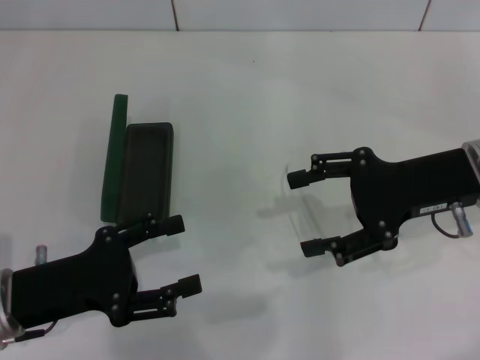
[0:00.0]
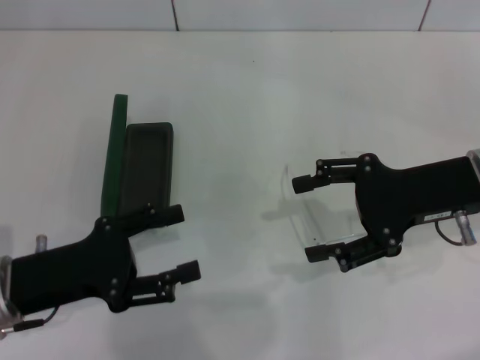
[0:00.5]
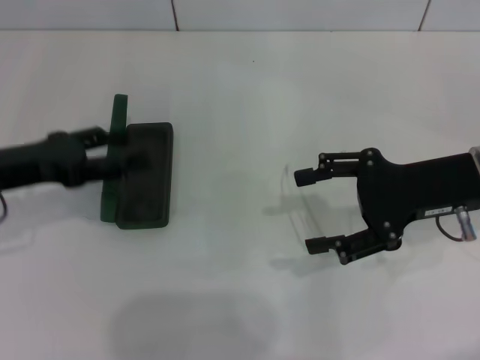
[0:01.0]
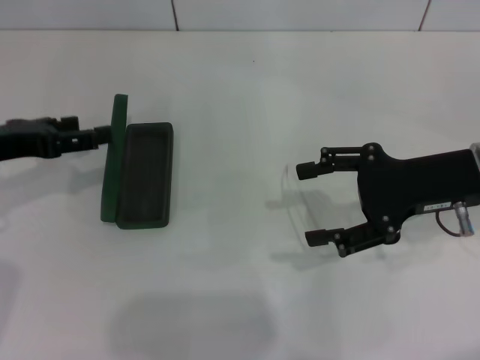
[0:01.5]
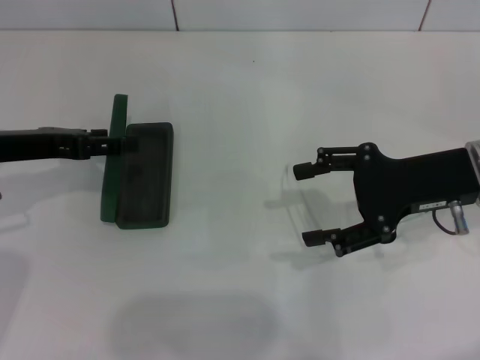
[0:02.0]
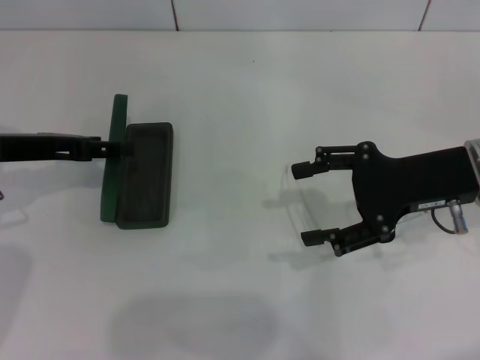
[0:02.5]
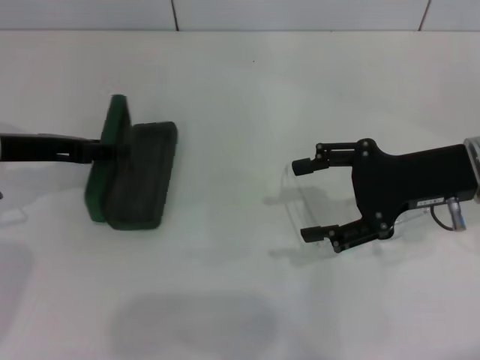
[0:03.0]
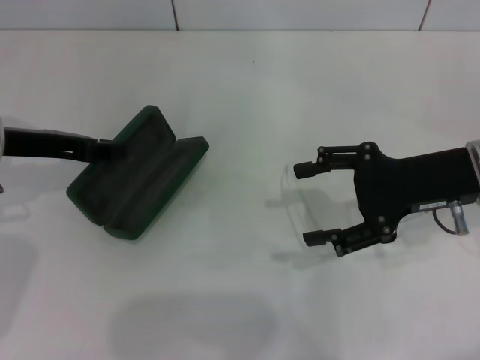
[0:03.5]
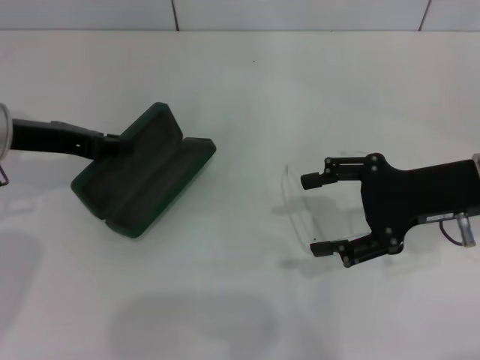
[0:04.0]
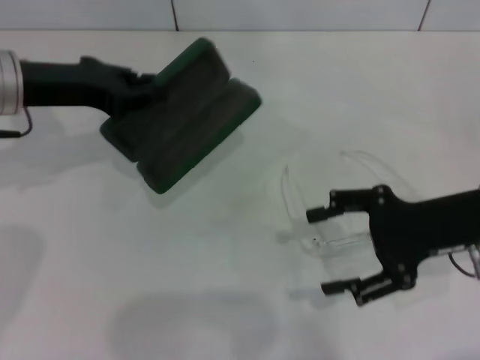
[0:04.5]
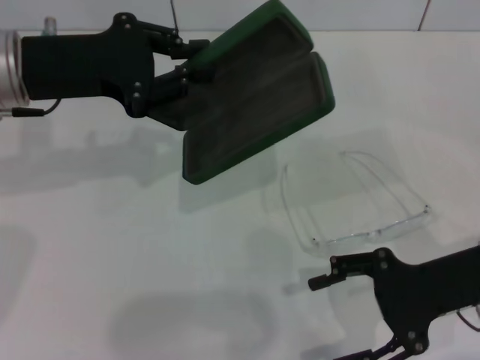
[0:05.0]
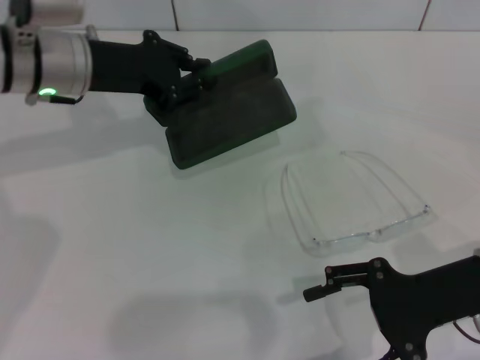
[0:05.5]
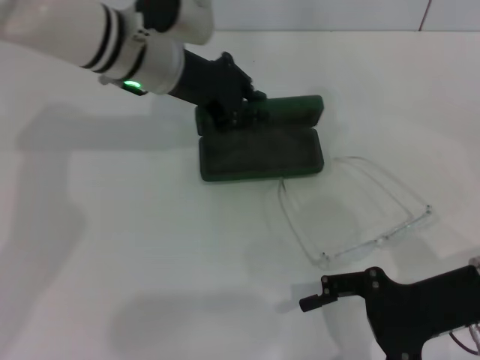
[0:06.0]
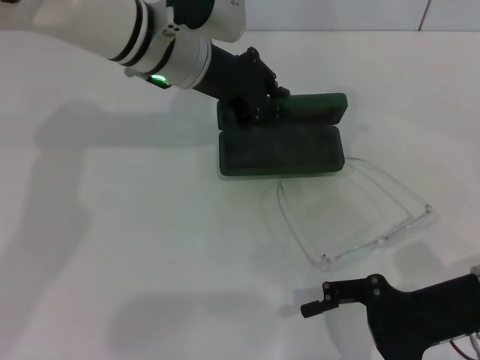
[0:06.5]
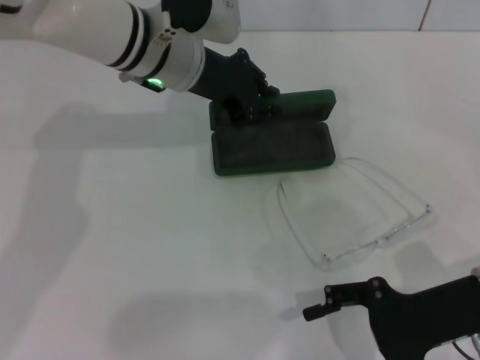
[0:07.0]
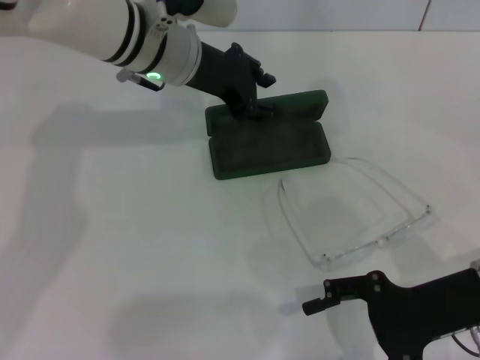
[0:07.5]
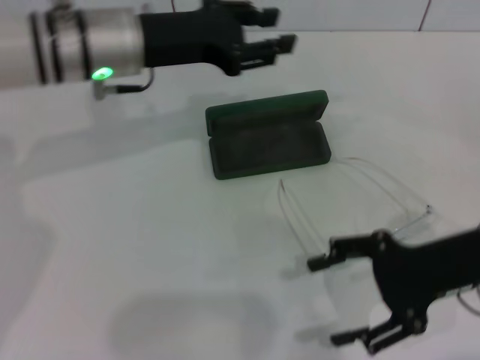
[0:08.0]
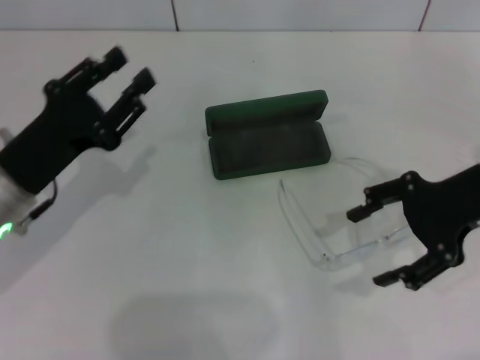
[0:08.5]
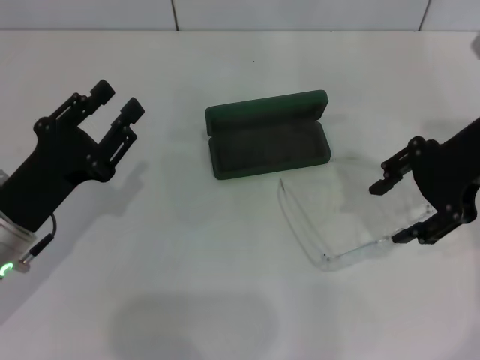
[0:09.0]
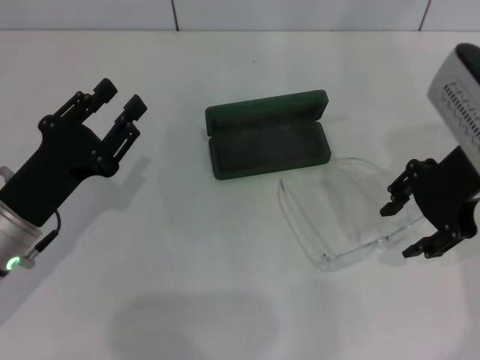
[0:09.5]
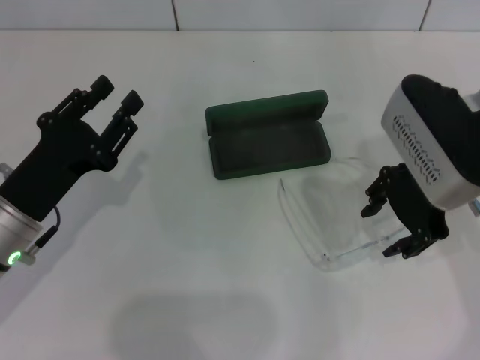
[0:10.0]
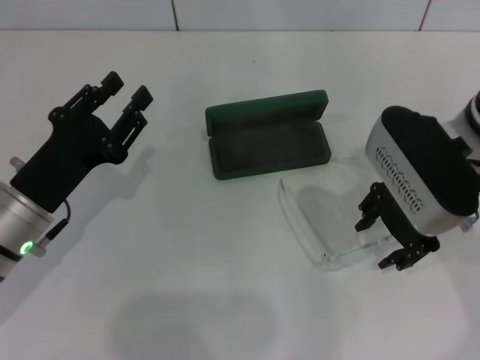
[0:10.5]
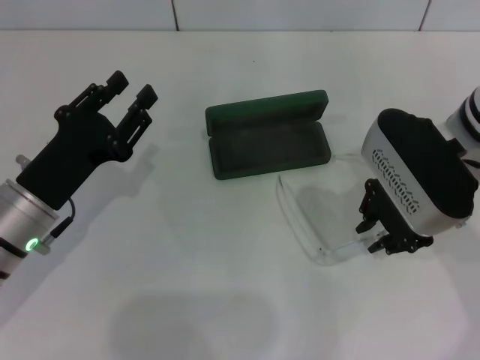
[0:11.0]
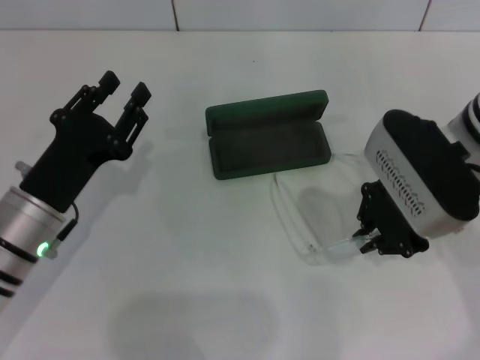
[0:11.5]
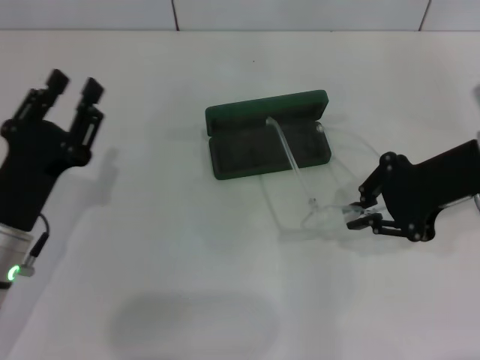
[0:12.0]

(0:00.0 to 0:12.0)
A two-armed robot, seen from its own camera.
Step, 0:00.0 - 0:03.0: Grab the glasses case with your left hand.
Step, 0:03.5 - 0:07.0: Place the glasses case in the center of the table with your left hand.
Step, 0:07.5 - 0:11.0: Grab the eyeglass frame with your right hand.
0:00.0 - 0:02.0: The left gripper goes approximately 15 cm forward and upward.
0:02.0 - 0:04.0: The left gripper closes its fingers.
0:04.0 - 0:06.0: The left gripper travels to the right and forward by approximately 15 cm. The right gripper shifts some 5 cm backward.
0:06.0 - 0:08.0: The left gripper opens up.
0:08.0 - 0:10.0: The right gripper goes roughly 10 cm upward, forward and to the left. The left gripper heads backward, downward and to the left, covering approximately 20 cm.
0:10.0 - 0:12.0: The right gripper changes place by about 5 cm, and closes up.

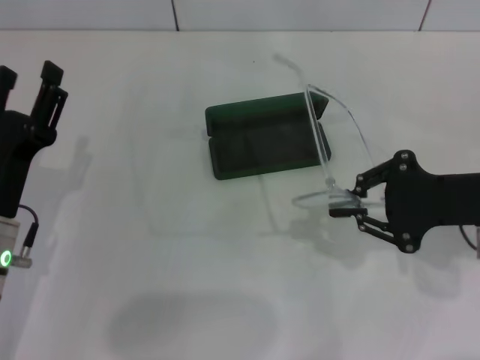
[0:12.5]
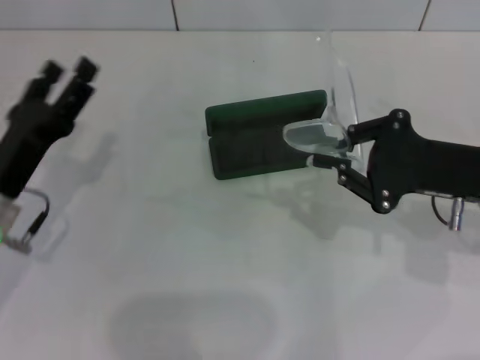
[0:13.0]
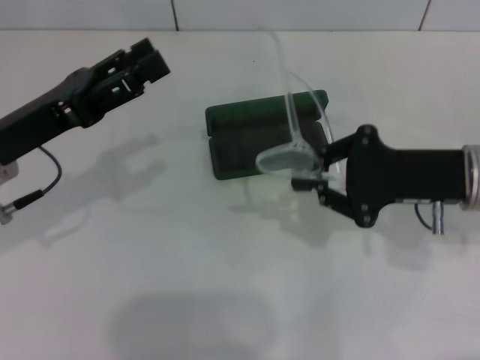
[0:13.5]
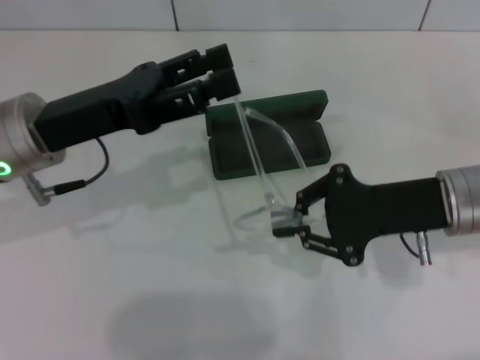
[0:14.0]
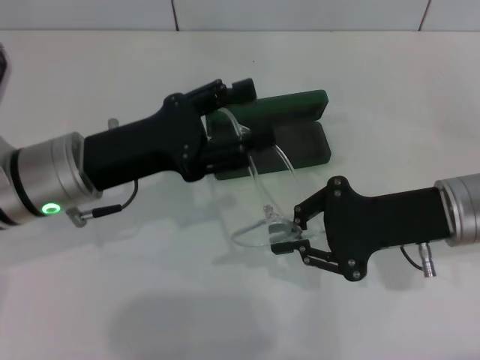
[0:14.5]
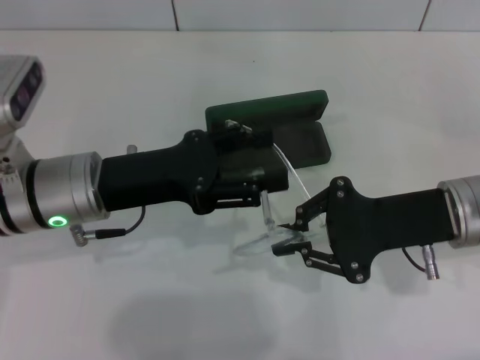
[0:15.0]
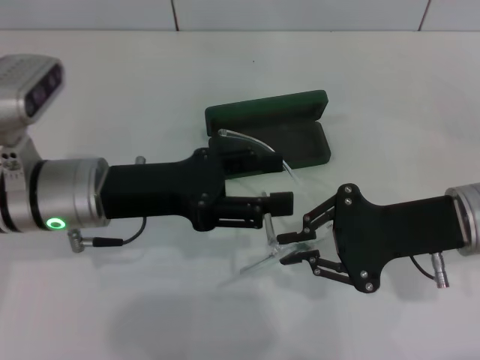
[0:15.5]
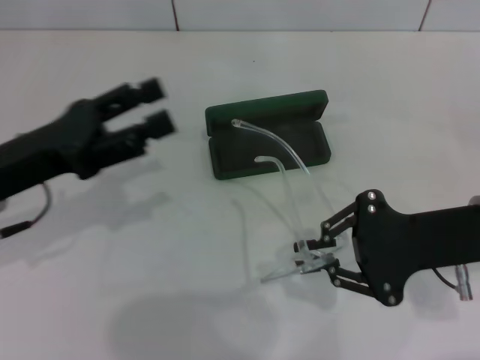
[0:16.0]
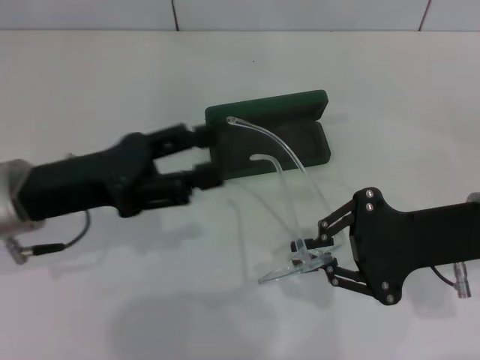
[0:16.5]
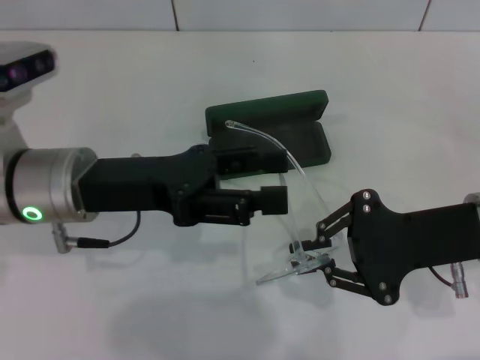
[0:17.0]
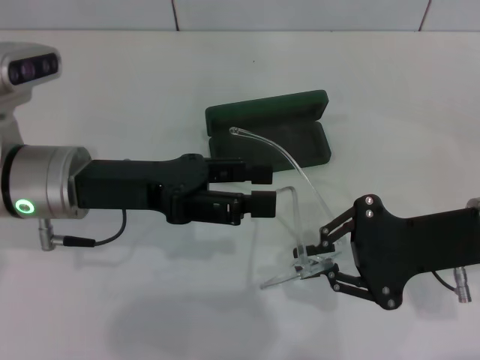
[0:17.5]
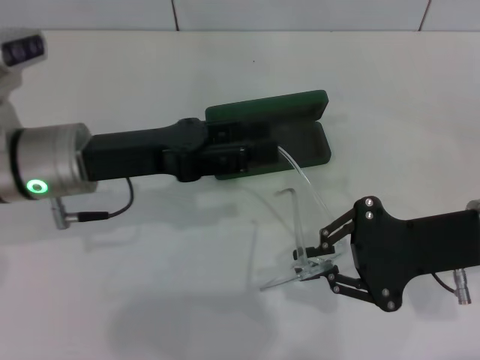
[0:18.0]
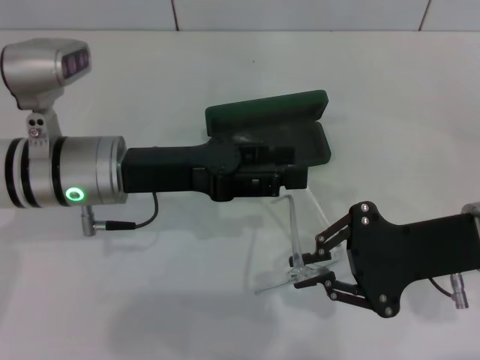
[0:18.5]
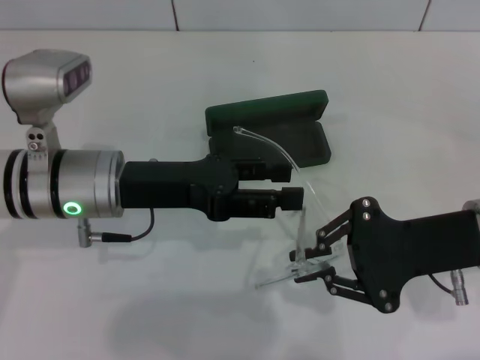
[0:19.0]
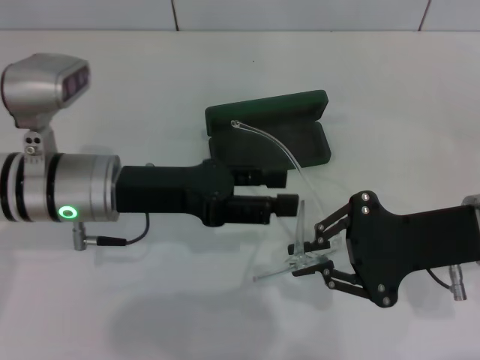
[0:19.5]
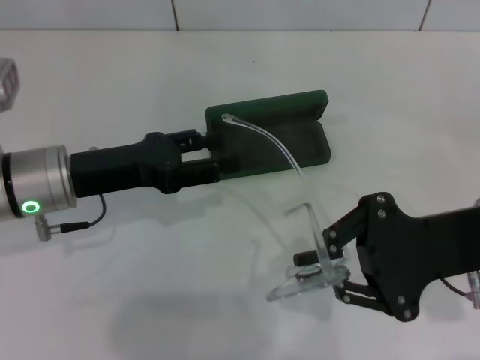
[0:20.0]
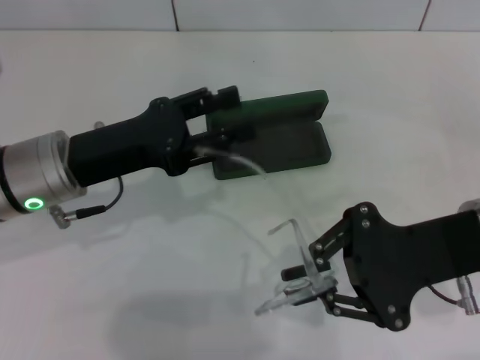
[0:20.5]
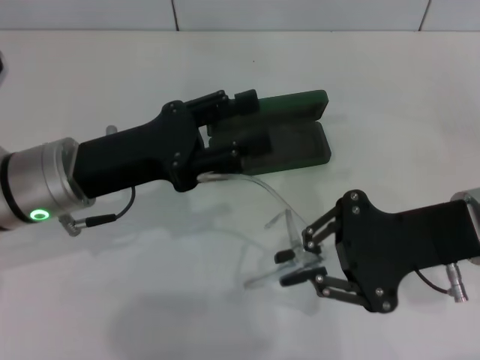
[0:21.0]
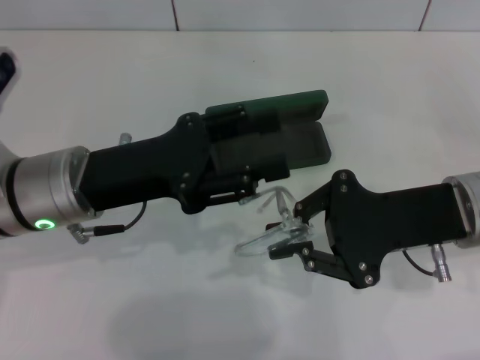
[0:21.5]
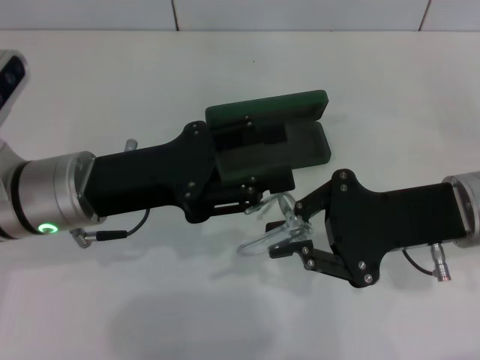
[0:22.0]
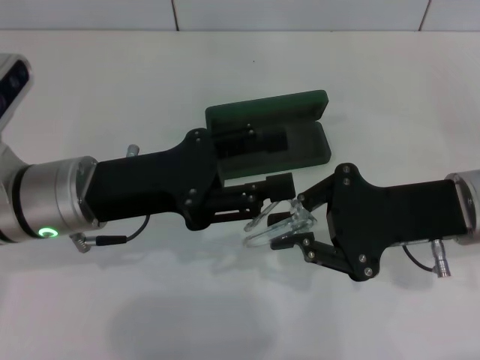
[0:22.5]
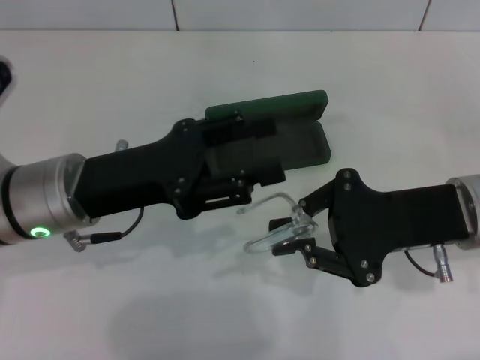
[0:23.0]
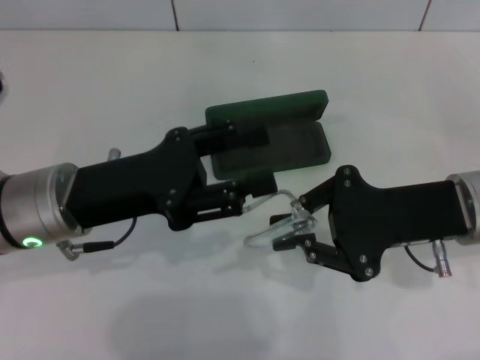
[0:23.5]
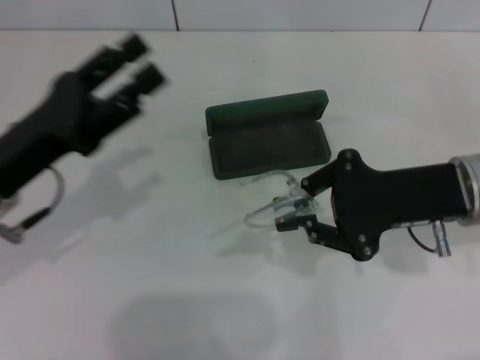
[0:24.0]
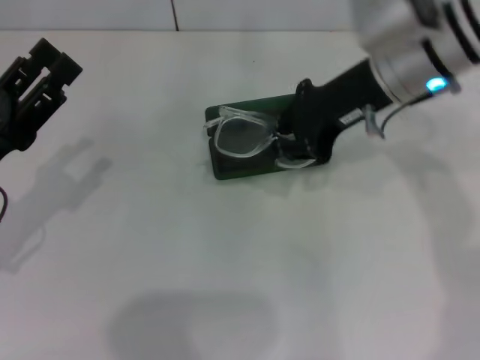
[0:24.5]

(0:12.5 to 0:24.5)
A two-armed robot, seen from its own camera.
Step, 0:12.5 - 0:23.0: Fold the frame with your left hand.
0:12.5 - 0:14.5: The right gripper moves to the left, about 5 cm, while the left gripper goes roughly 10 cm upward, forward and to the right.
0:16.5 - 0:18.5: The left gripper moves to the right, some 5 cm.
0:22.5 - 0:24.5: The right gripper heads forward, upward and to the left, covering about 15 cm; the left gripper shifts some 10 cm to the left.

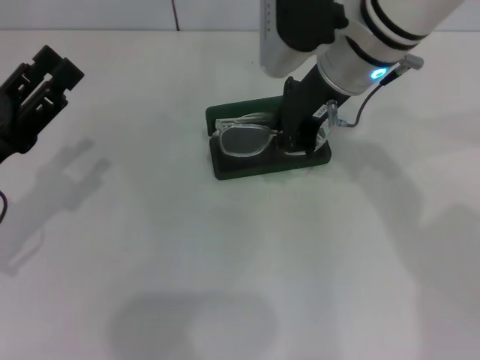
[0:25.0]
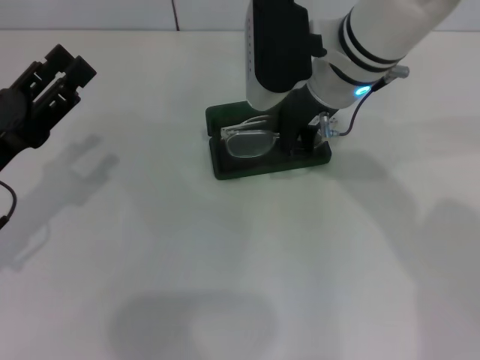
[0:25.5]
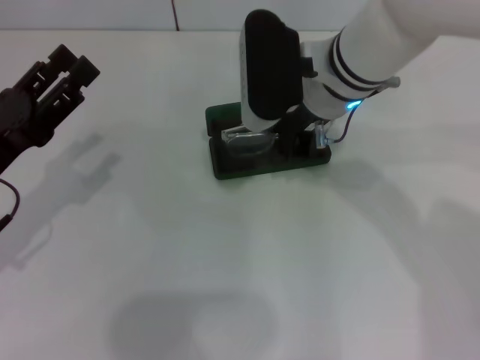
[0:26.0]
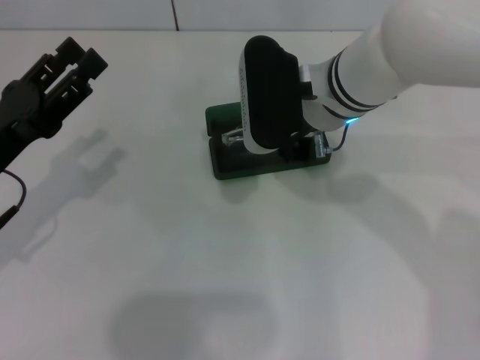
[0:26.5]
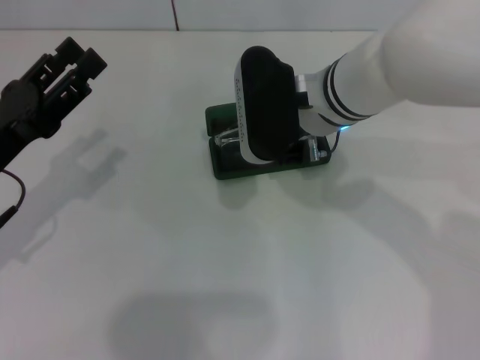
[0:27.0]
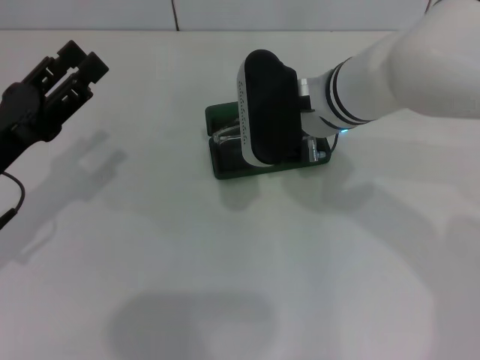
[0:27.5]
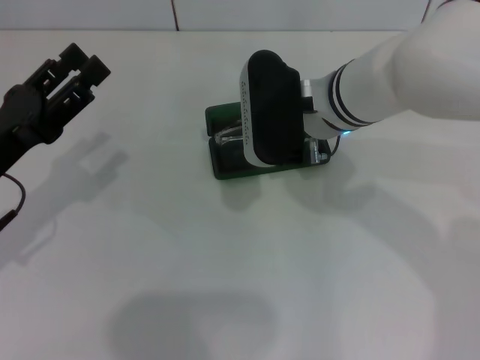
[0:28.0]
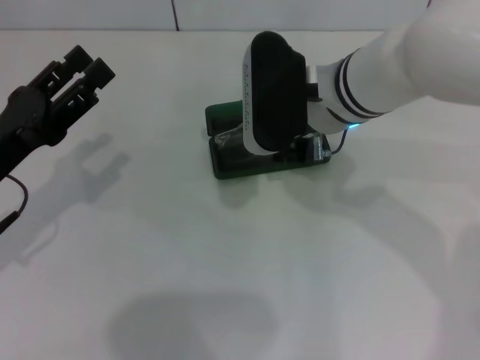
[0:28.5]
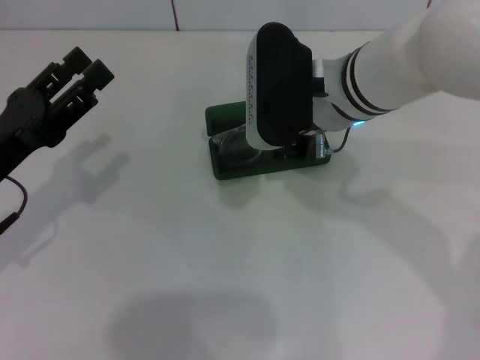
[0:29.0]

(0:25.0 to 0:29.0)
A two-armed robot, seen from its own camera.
0:25.0 - 0:27.0: The right gripper shifts roughly 5 cm downward.
0:27.0 - 0:29.0: The right gripper opens its fingers.
